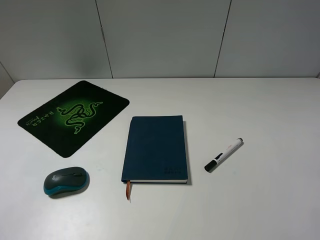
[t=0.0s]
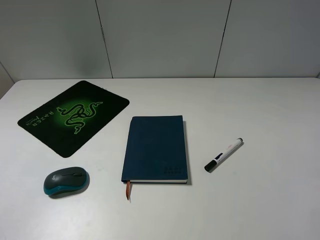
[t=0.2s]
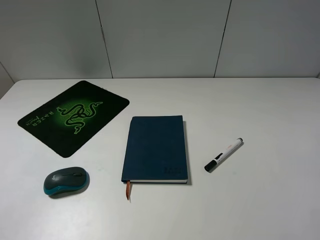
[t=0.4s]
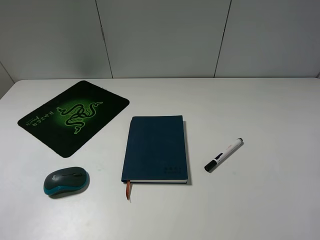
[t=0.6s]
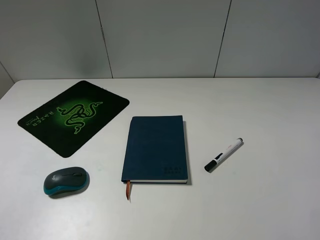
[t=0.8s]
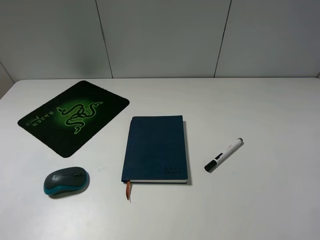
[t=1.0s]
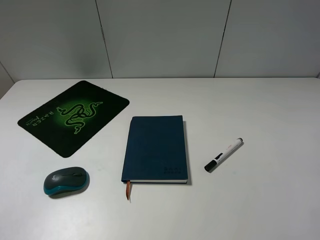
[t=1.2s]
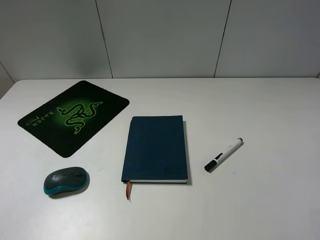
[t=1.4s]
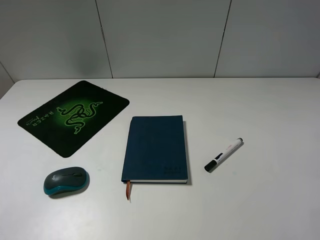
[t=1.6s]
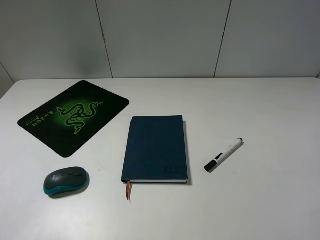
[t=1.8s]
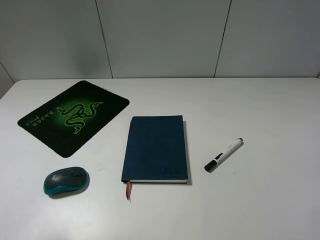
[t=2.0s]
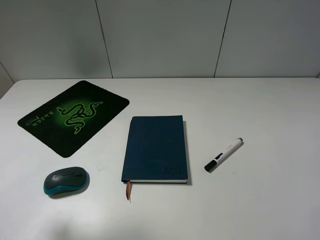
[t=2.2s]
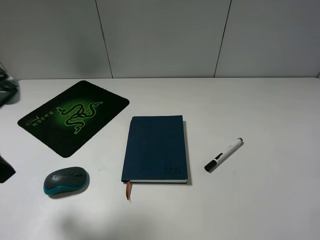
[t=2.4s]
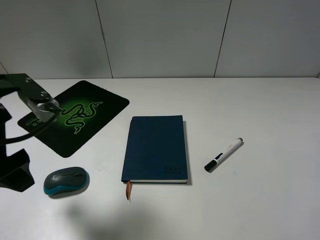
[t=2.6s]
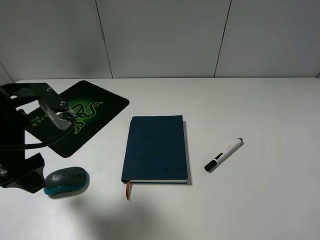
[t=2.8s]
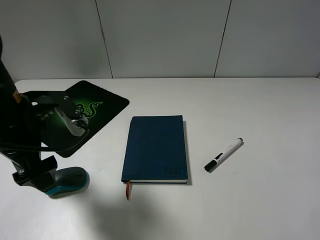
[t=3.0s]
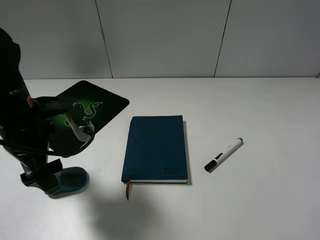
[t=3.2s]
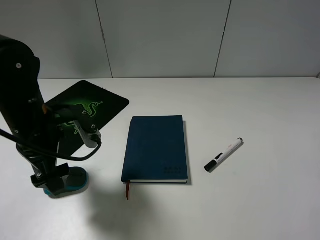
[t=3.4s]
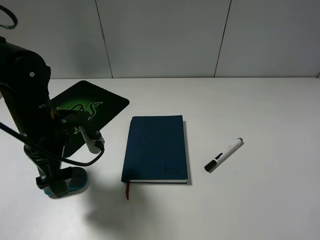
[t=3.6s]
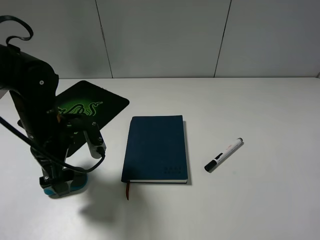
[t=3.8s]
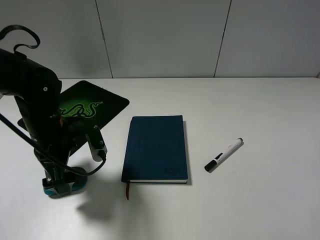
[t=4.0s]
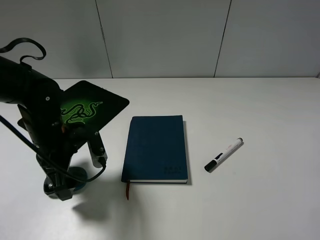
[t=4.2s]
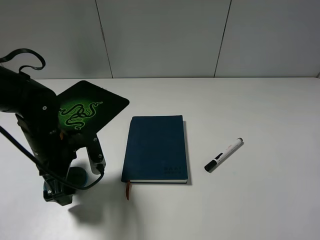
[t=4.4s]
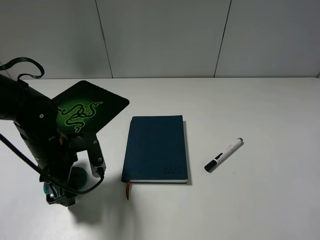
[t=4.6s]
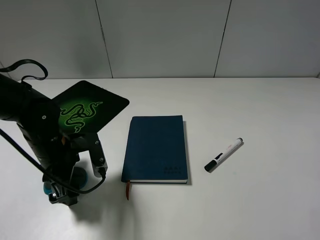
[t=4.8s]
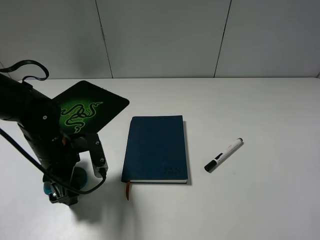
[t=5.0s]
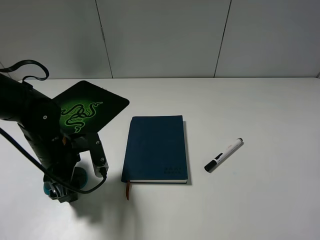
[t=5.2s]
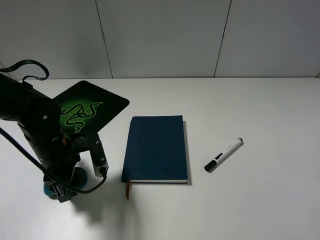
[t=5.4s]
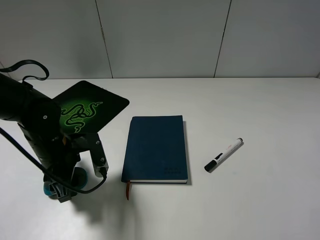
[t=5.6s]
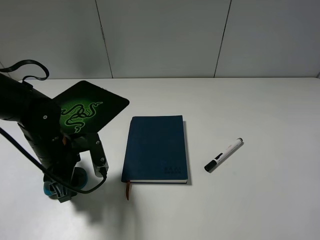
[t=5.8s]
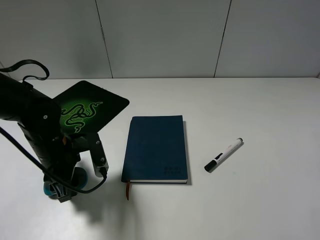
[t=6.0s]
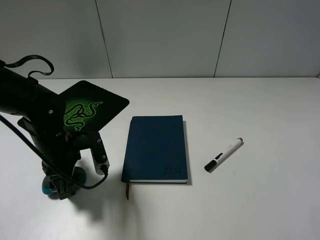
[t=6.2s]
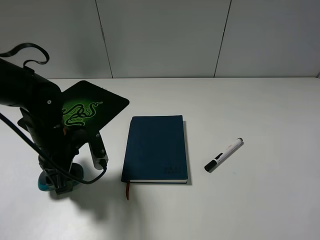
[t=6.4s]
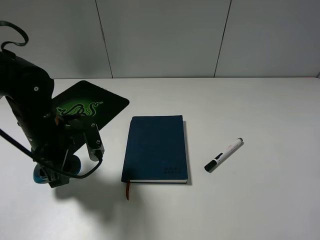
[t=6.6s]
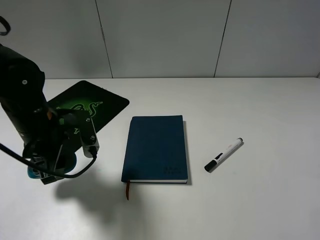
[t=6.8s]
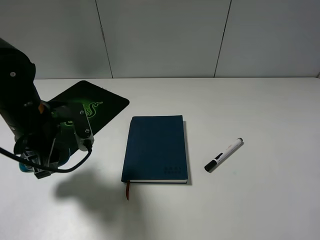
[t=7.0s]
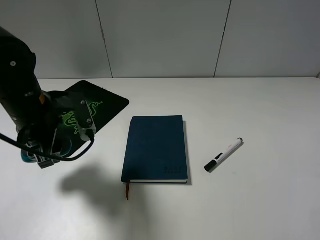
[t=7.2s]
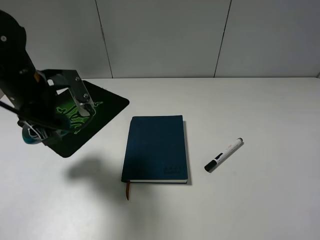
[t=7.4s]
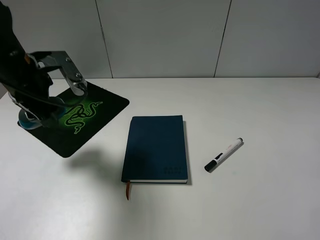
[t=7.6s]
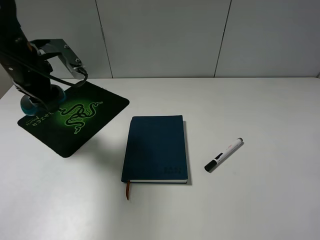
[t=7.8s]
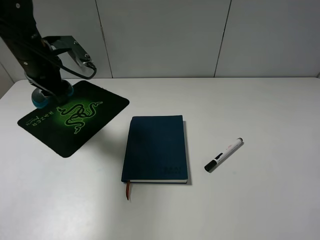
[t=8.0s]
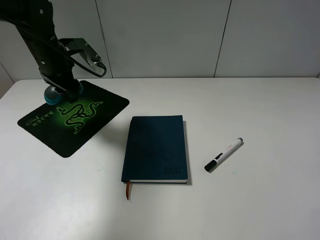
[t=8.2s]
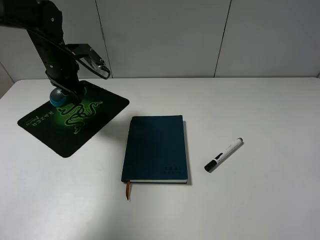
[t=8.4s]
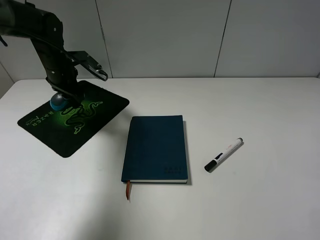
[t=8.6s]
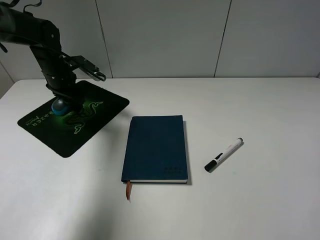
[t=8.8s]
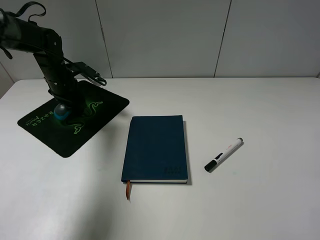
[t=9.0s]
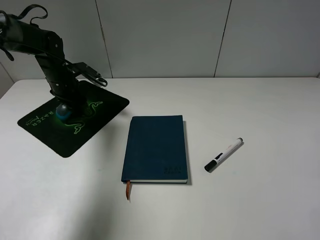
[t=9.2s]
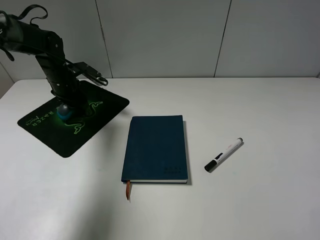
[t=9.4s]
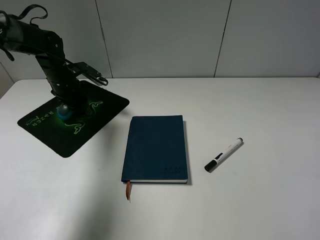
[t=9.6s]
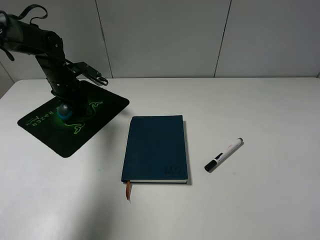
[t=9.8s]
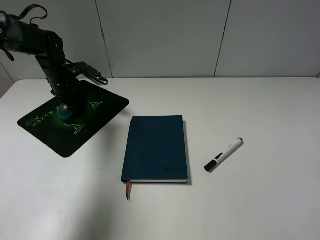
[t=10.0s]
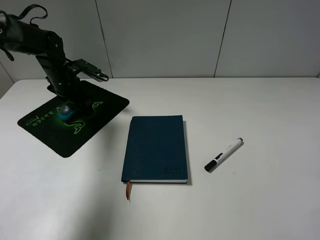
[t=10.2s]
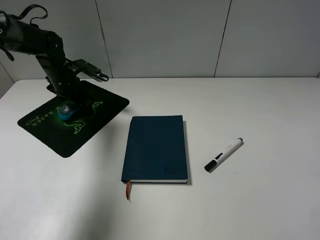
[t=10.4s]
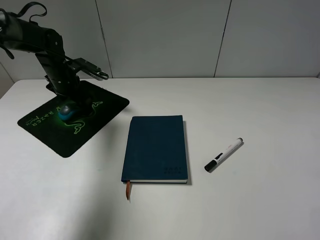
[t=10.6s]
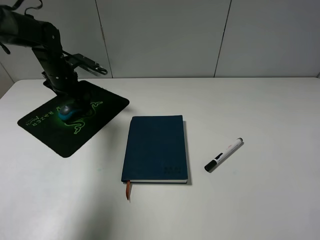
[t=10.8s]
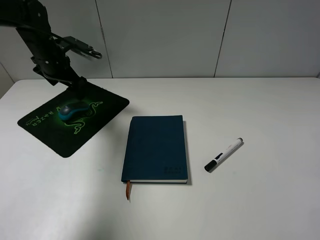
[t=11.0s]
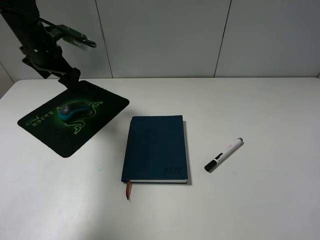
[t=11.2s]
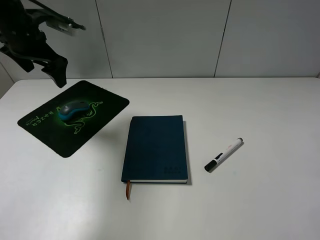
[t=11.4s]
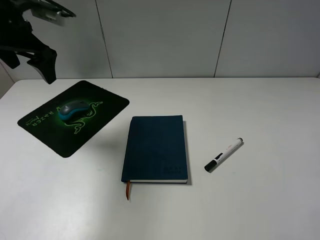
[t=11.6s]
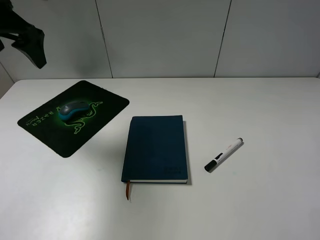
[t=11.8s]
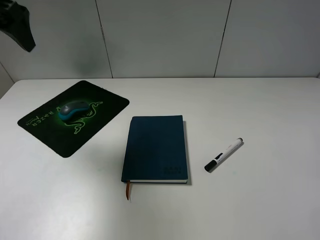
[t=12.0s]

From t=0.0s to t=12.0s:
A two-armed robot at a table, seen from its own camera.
Step, from t=0.0s to t=5.8s: Grasp the mouse with the left gripper.
Step, from t=6.0s to t=10.8s: Place the mouse on the mouse pad with the left gripper.
From t=1.6s to t=3.0s: The left gripper is displaced forward, downward and to the right by about 25 cm.
From t=3.0s to t=4.4s: The left gripper goes roughly 10 cm downward.
From t=4.4s to t=6.0s: The left gripper closes its fingers.
From t=6.0s to t=7.6s: The left gripper moves upward and forward, about 15 cm.
From t=7.6s to t=9.0s: The left gripper heads forward and downward, covering roughly 20 cm.
From t=9.0s to t=10.4s: The left gripper opens its fingers.
From t=10.4s to t=12.0s: The left gripper moves upward and backward, approximately 30 cm.

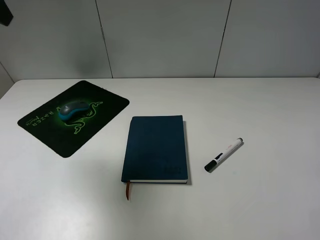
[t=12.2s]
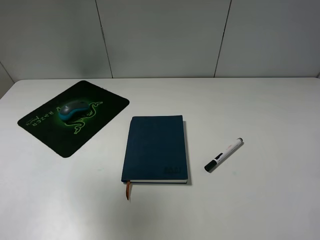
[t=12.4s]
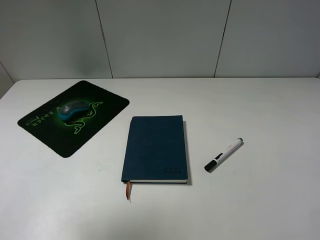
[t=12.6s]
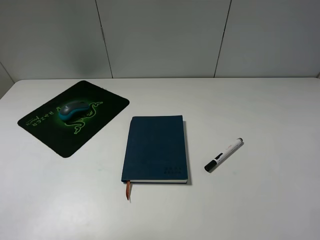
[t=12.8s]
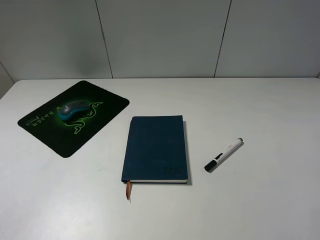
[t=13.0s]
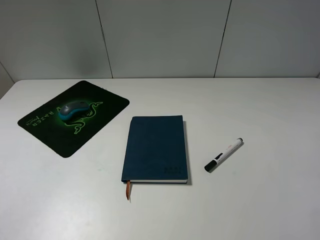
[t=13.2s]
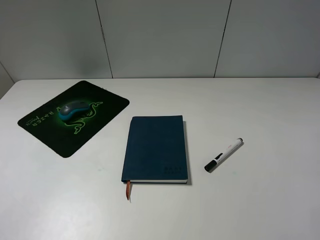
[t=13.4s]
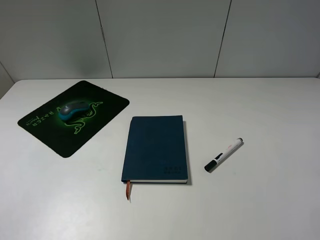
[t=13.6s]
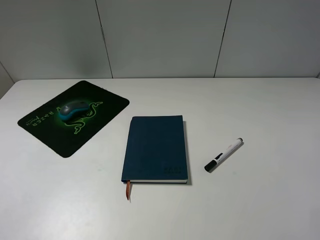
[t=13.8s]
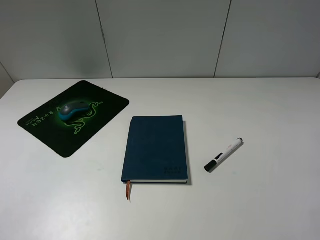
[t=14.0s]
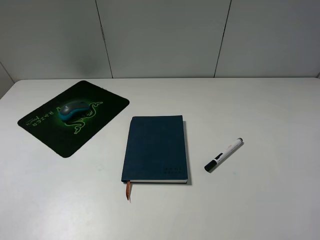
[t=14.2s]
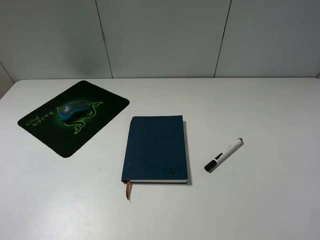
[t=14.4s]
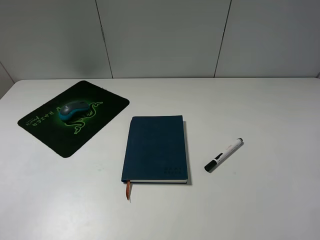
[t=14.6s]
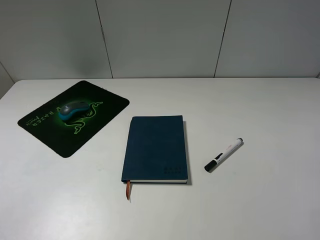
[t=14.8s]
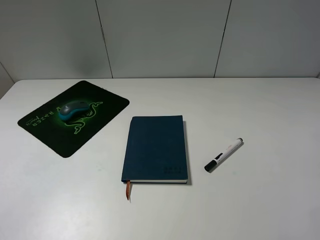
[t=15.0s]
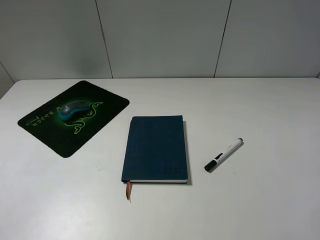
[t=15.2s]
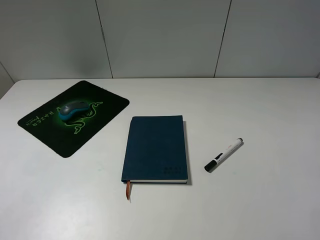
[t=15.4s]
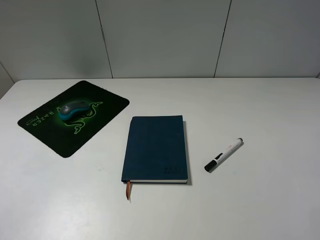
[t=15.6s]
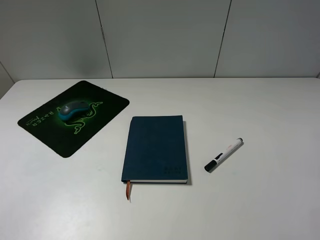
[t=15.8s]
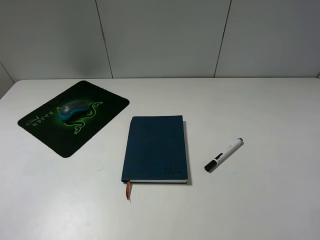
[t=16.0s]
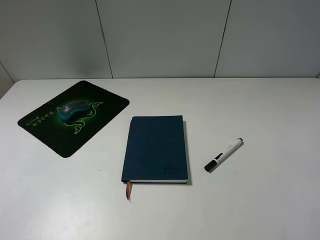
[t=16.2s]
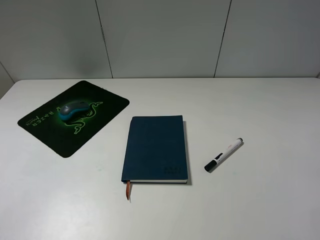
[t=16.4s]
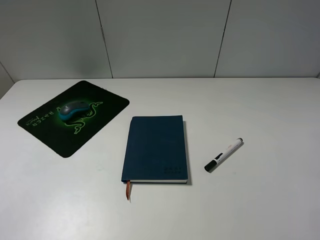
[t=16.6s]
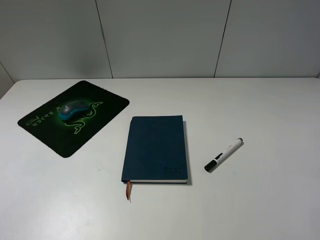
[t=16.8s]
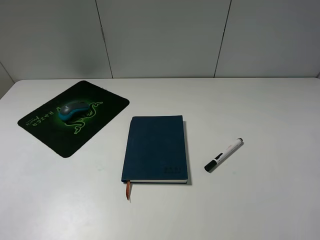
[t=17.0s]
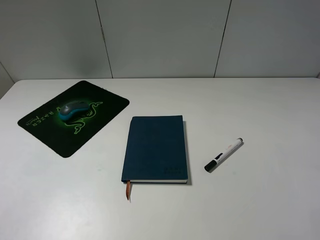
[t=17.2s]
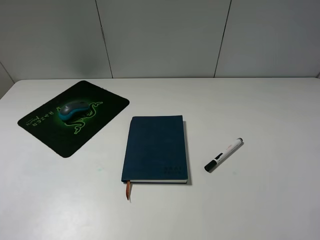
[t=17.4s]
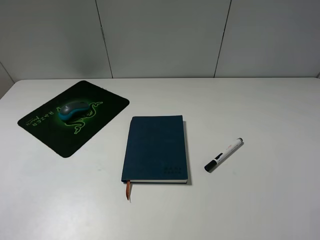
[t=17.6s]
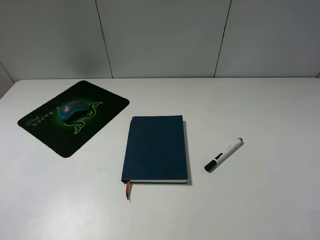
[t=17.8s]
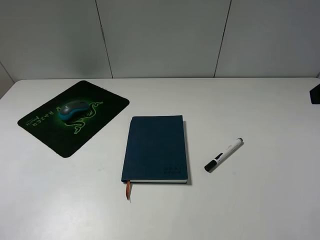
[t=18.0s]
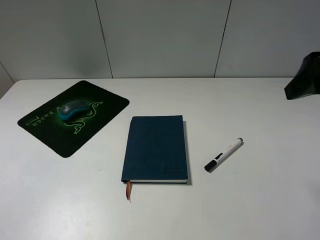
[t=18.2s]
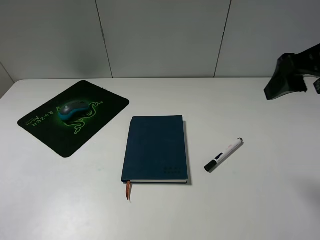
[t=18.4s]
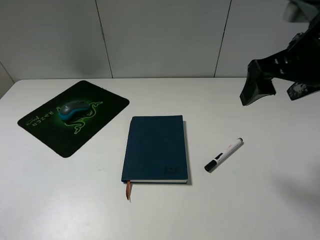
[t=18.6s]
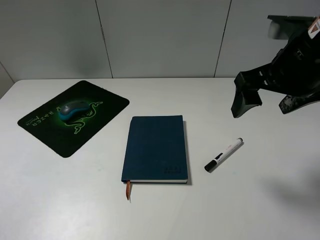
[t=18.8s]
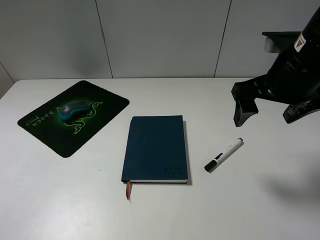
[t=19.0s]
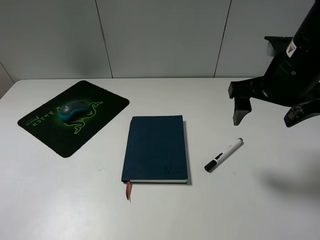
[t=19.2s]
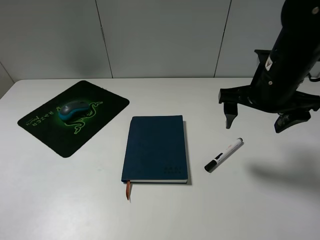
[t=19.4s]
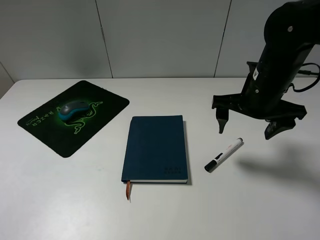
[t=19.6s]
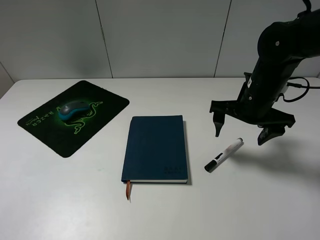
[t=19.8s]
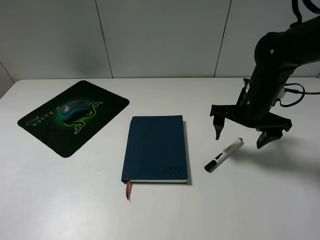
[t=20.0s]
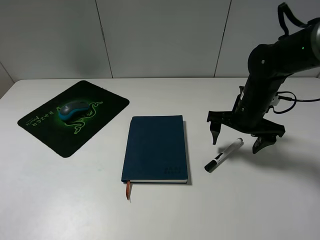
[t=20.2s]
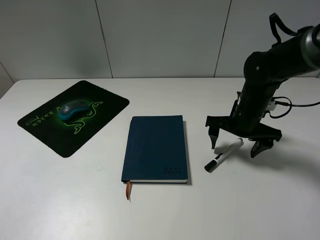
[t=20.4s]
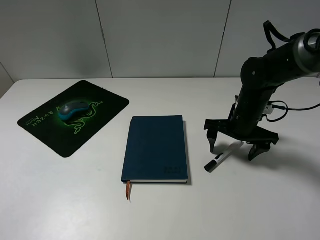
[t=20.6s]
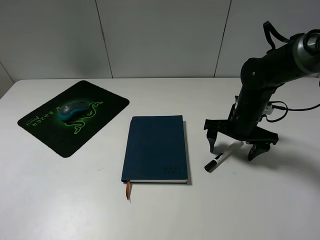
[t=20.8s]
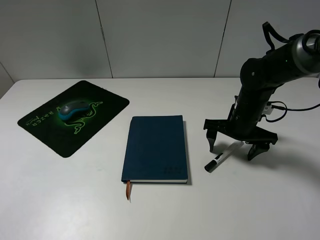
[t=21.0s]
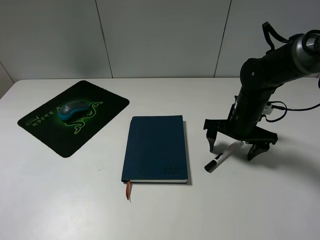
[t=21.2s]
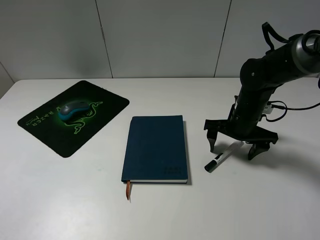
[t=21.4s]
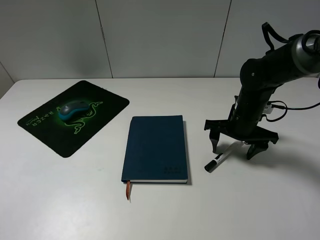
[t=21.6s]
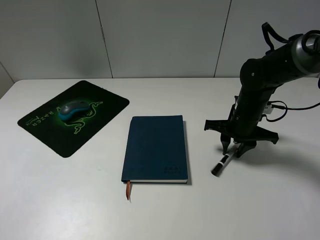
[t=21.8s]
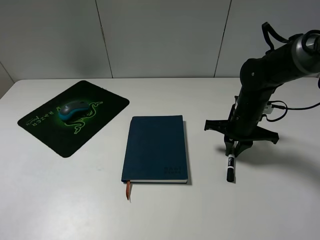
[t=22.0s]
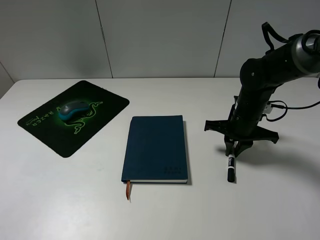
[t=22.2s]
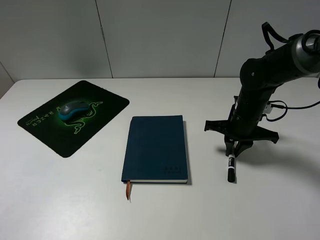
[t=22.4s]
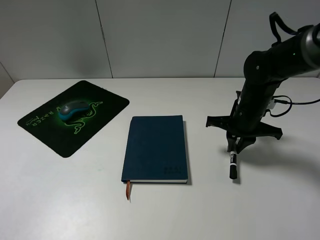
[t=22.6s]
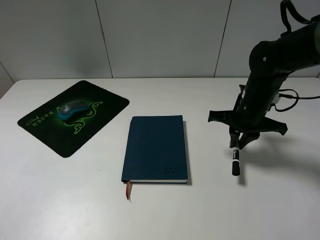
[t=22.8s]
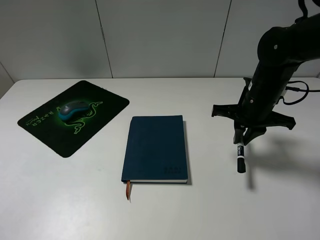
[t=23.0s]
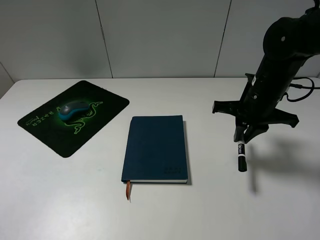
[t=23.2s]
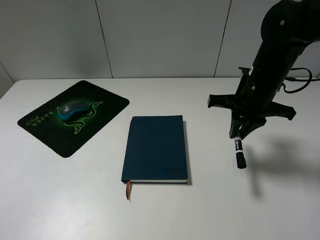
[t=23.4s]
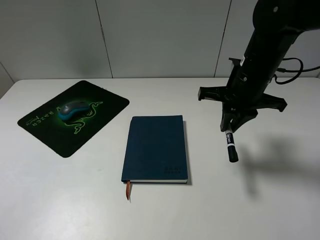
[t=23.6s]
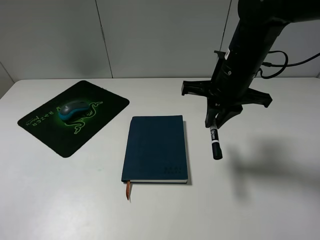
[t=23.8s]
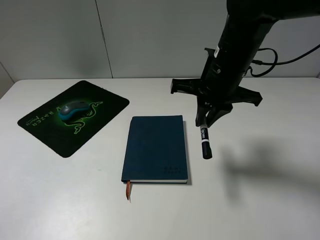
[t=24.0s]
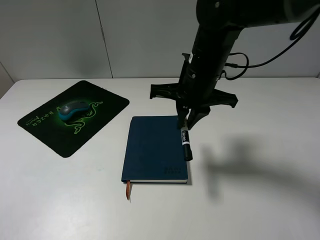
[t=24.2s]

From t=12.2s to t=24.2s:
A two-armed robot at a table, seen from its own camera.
Step, from t=12.2s to t=22.4s: Grasp the marker with the right gripper.
From t=12.2s to t=13.8s: The left gripper moves backward and downward, some 30 cm.
From t=16.6s to t=18.2s: The right gripper heads forward, covering roughly 20 cm.
From t=18.2s to t=19.8s: The right gripper goes about 20 cm downward, forward and to the left.
From t=19.8s to t=21.2s: The right gripper shifts approximately 5 cm downward.
From t=21.2s to t=22.6s: The right gripper closes.
From t=22.6s to t=24.2s: The right gripper travels to the left and upward by some 15 cm.
